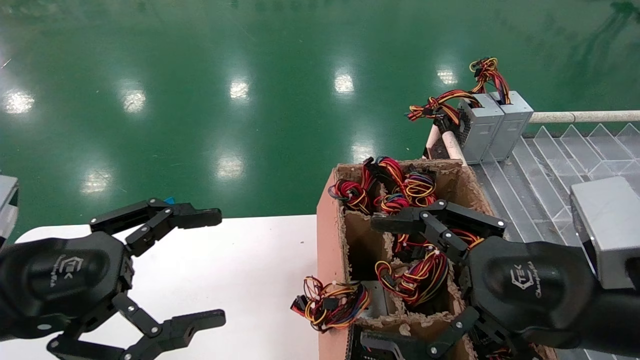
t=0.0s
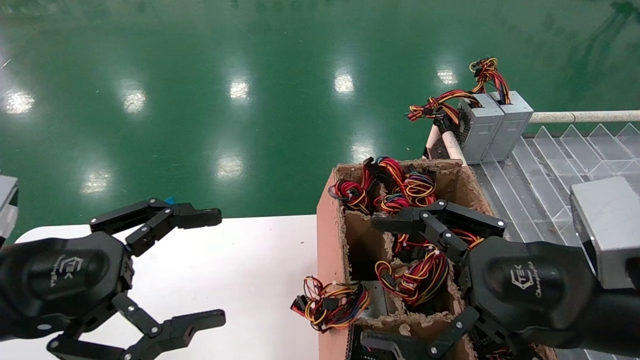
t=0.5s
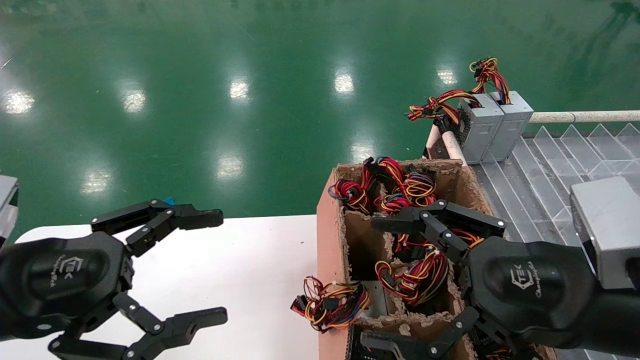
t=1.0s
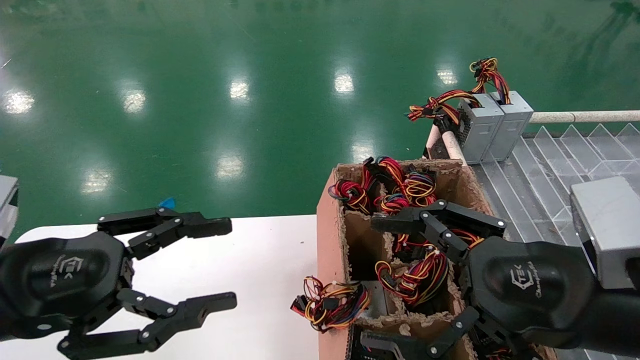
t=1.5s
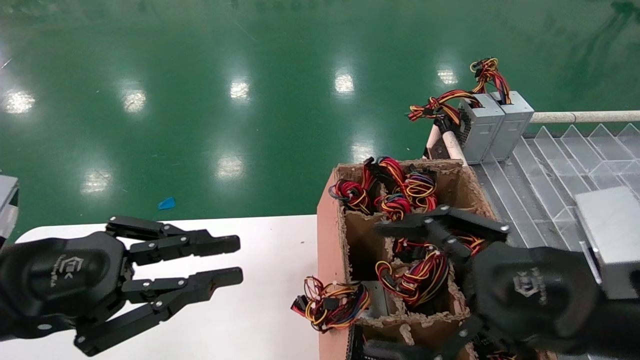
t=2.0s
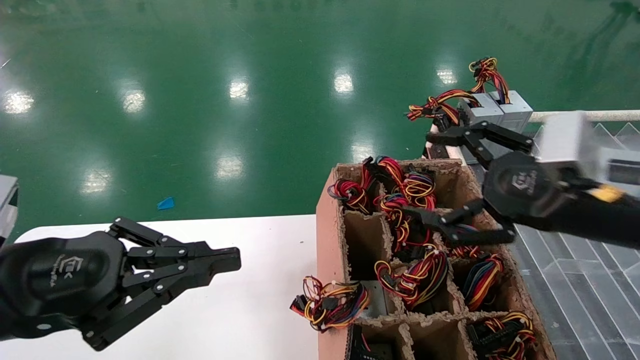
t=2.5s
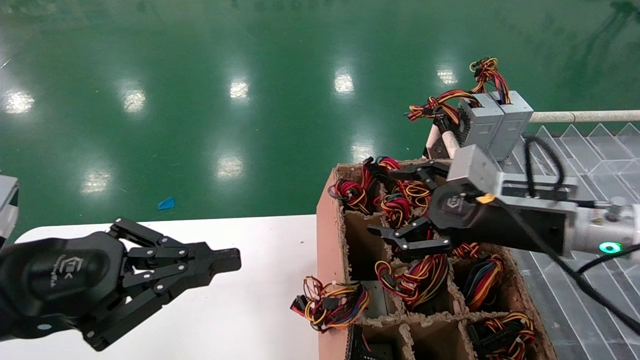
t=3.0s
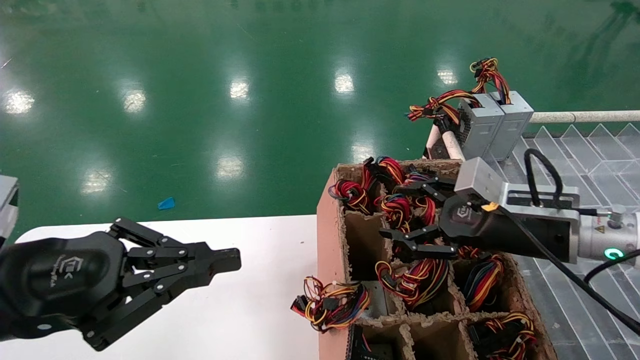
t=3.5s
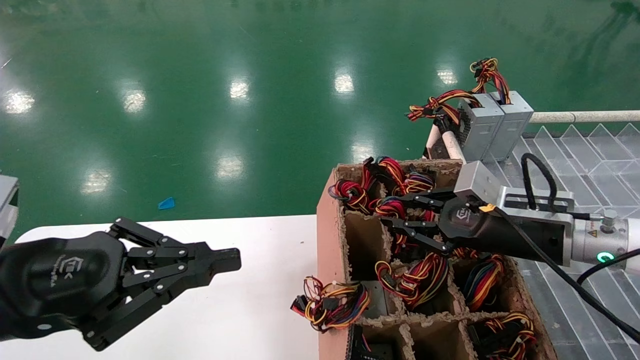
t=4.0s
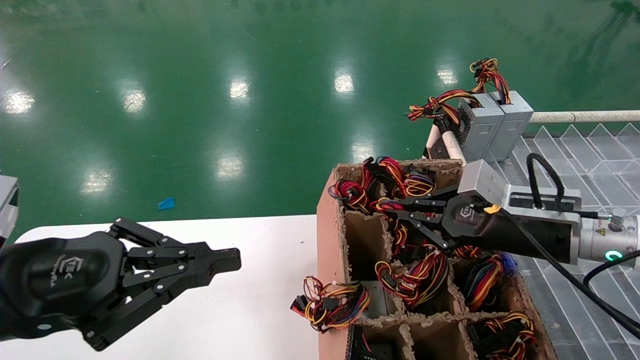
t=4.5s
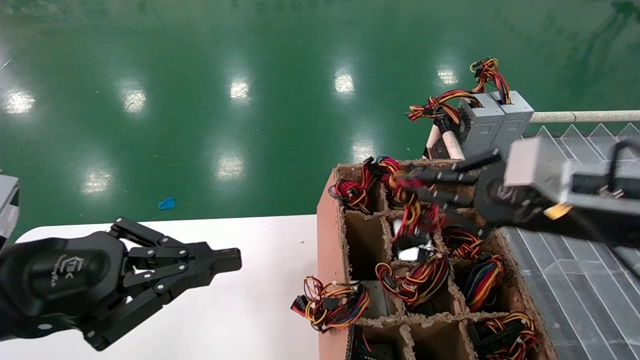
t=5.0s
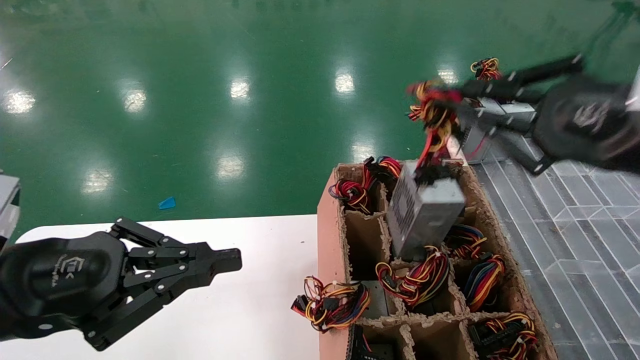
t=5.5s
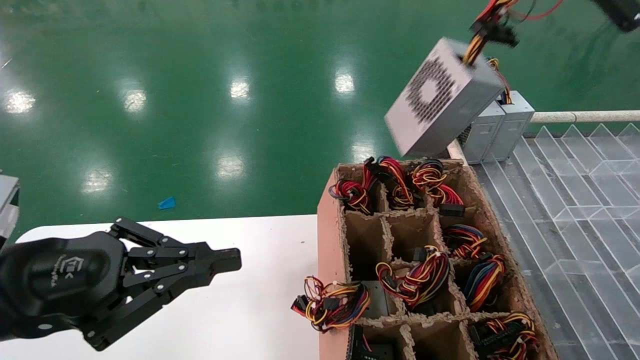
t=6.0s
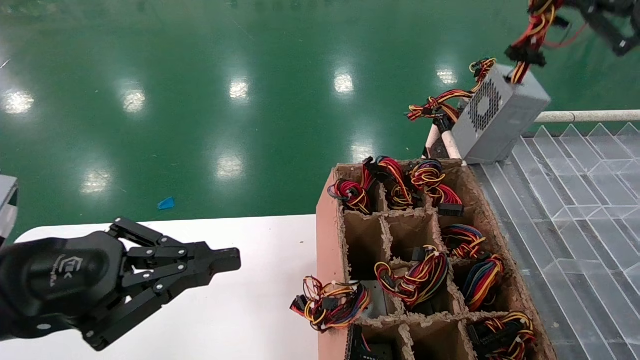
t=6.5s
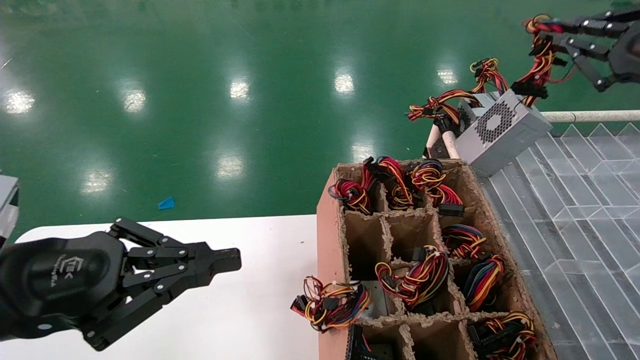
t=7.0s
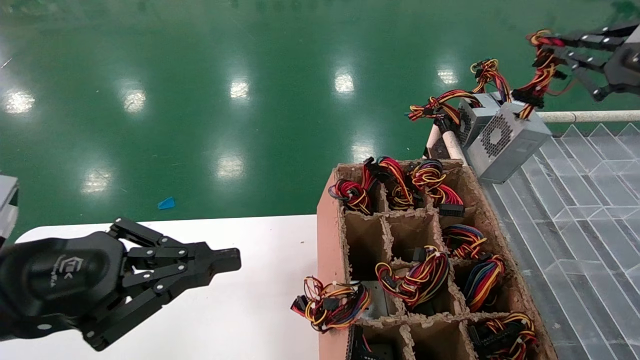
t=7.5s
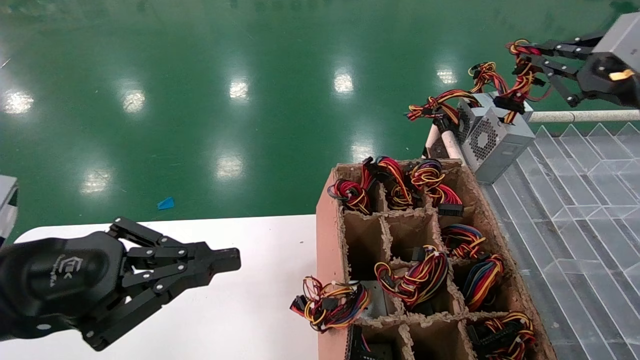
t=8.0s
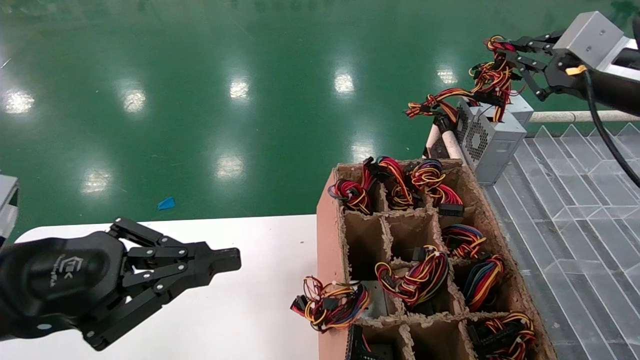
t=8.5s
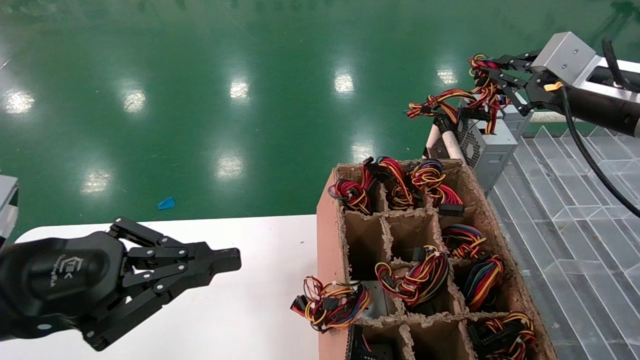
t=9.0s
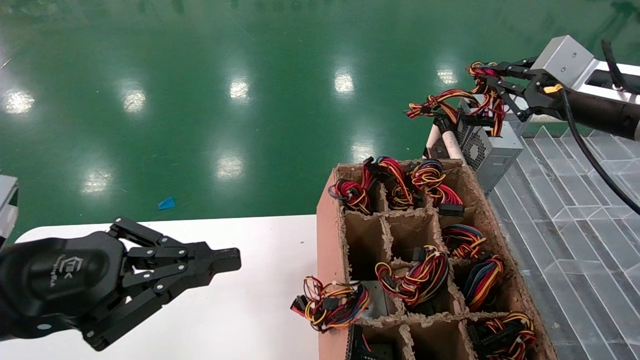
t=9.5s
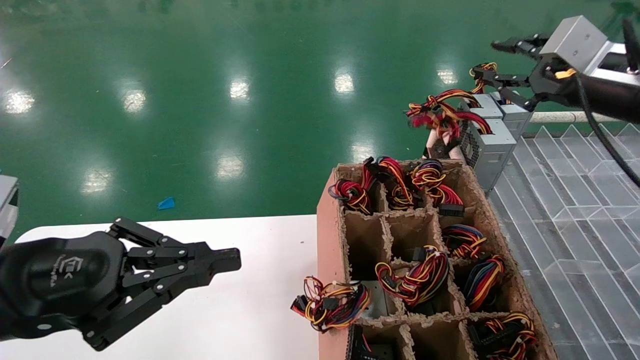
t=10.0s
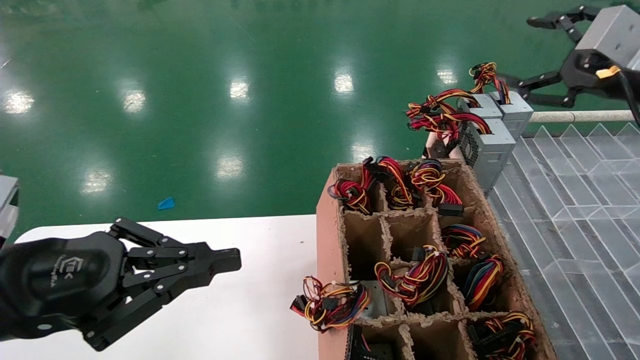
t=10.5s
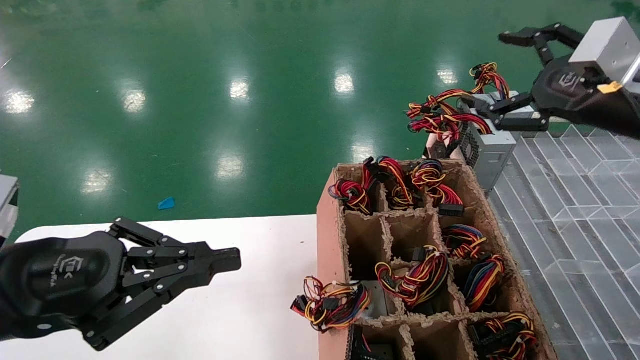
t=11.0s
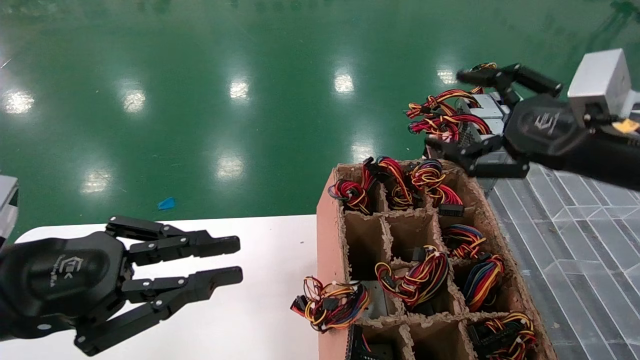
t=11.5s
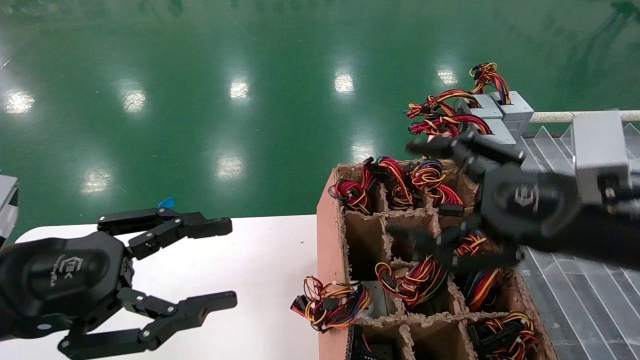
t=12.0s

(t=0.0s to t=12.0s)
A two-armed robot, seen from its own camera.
Step, t=2.5s - t=4.0s: Grab the main unit power supply from the containment box.
Step, t=4.5s - t=10.0s: Place the main unit power supply in the designated area.
t=0.0s - t=2.0s: The left gripper closes.
t=2.0s - t=4.0s: The right gripper heads forward, covering some 15 cm, and closes its fingers.
t=4.0s - t=6.0s: The right gripper heads upward and backward, covering approximately 25 cm, and closes its fingers.
t=6.0s - t=8.0s: The right gripper goes roughly 15 cm forward and to the right.
t=8.0s - t=10.0s: The grippers make only small movements.
t=10.0s - t=12.0s: The left gripper opens its fingers, while the right gripper goes some 20 cm backward, to the left and downward, and opens up.

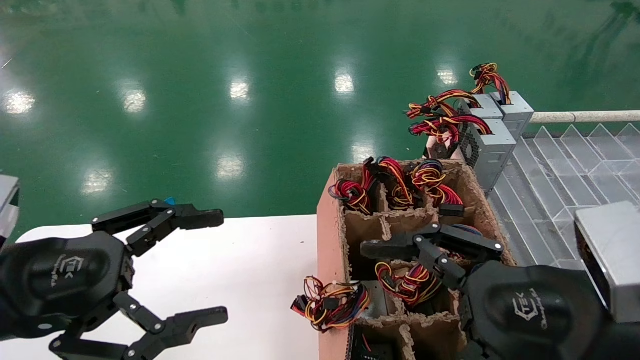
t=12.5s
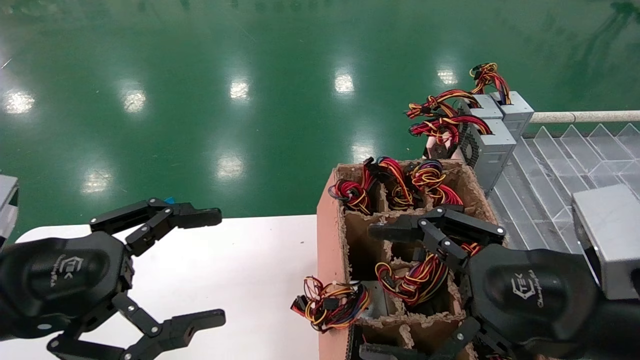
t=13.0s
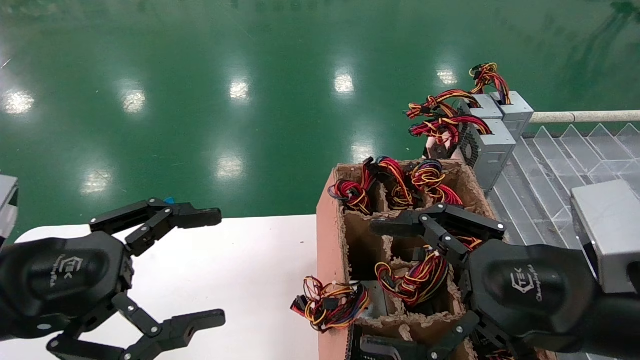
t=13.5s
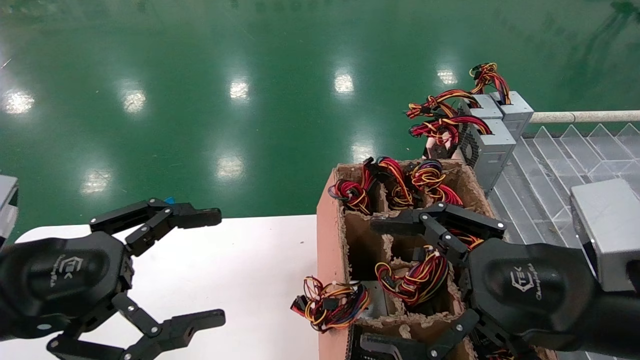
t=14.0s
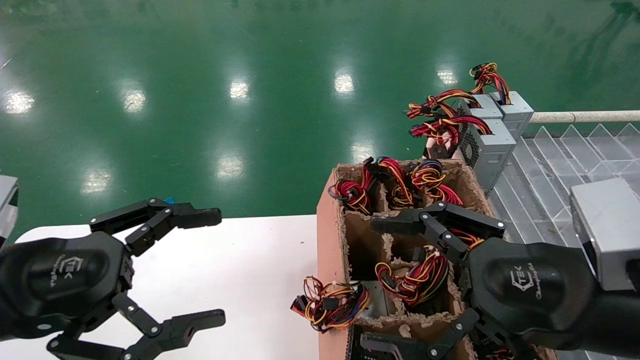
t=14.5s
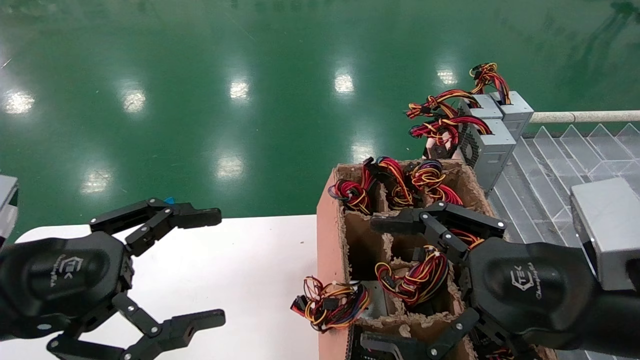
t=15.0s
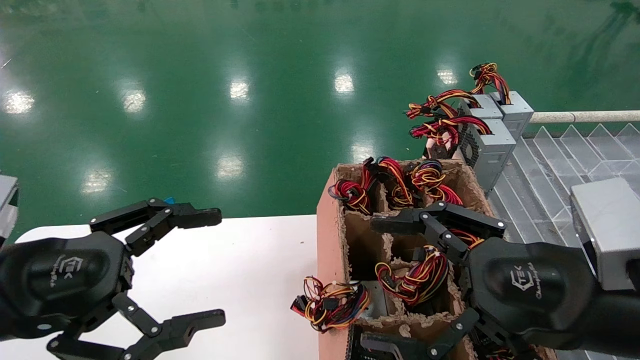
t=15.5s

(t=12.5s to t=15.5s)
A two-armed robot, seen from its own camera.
t=12.5s - t=15.5s: Neither gripper changes place.
